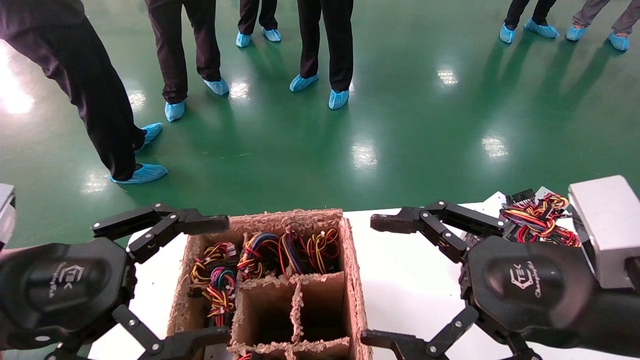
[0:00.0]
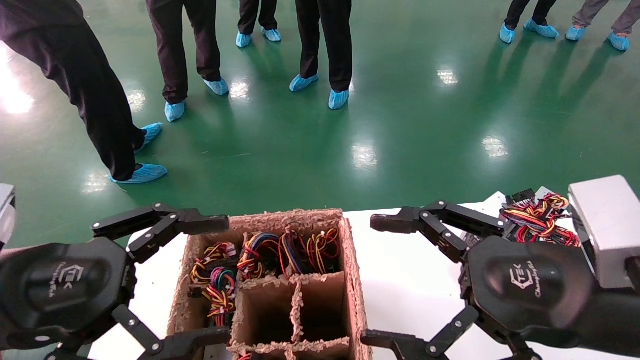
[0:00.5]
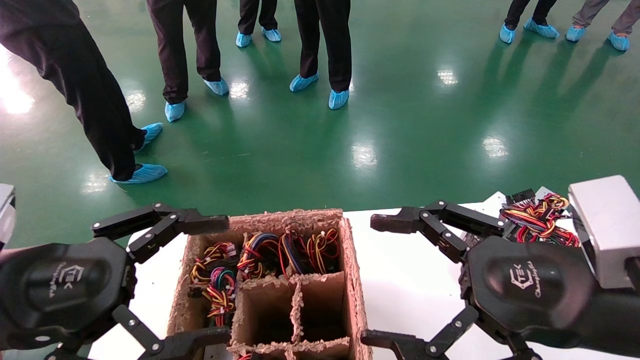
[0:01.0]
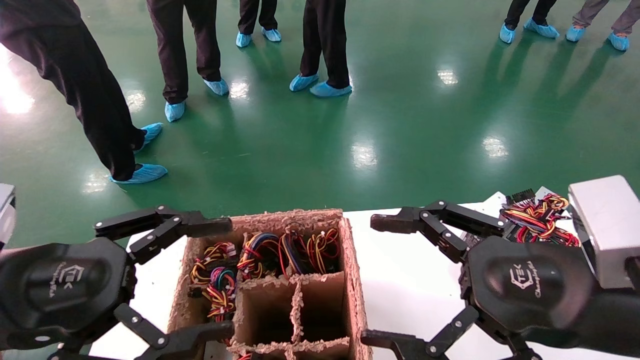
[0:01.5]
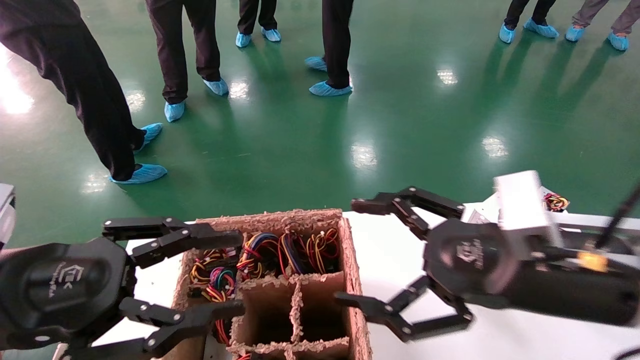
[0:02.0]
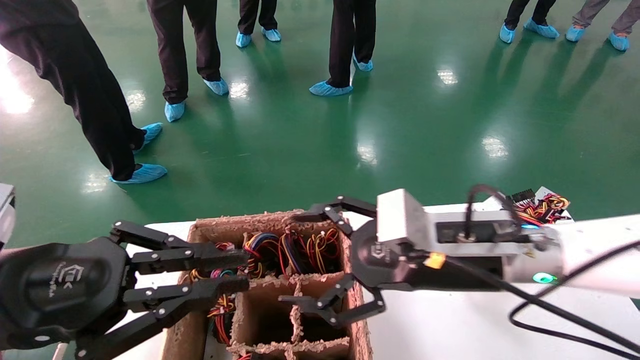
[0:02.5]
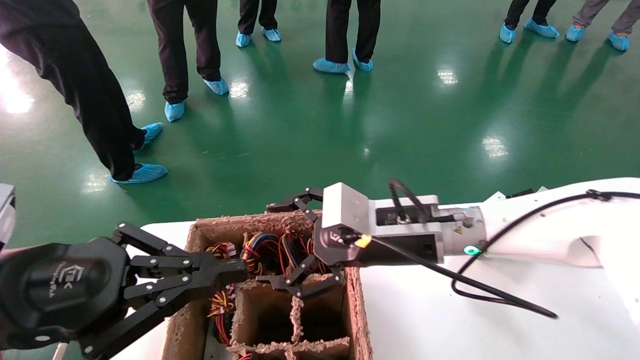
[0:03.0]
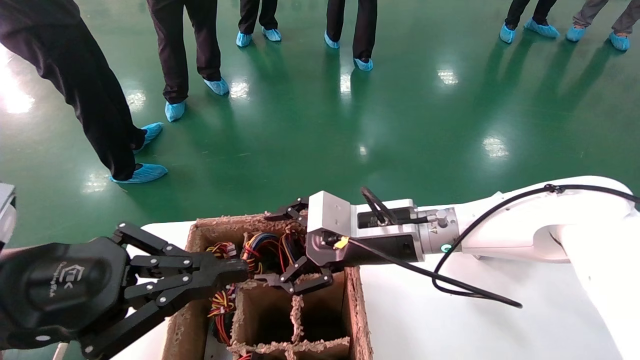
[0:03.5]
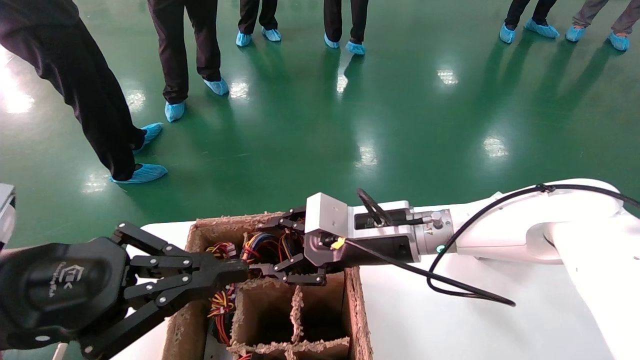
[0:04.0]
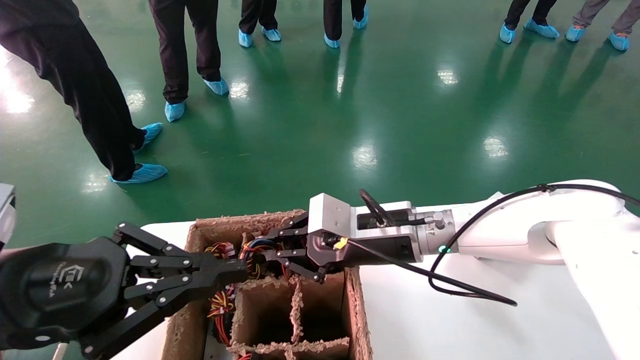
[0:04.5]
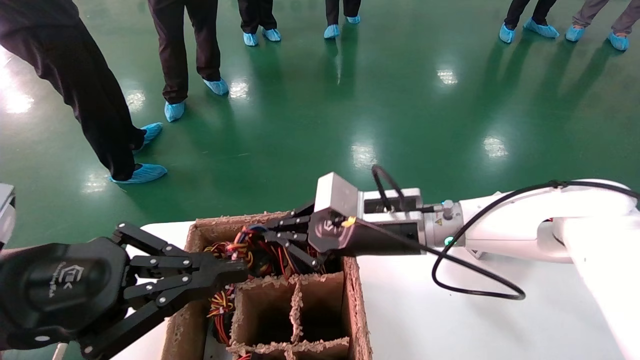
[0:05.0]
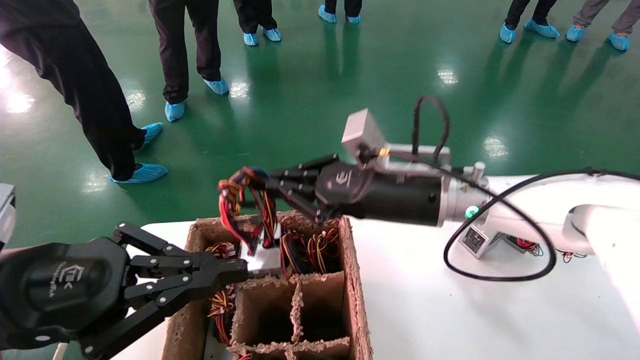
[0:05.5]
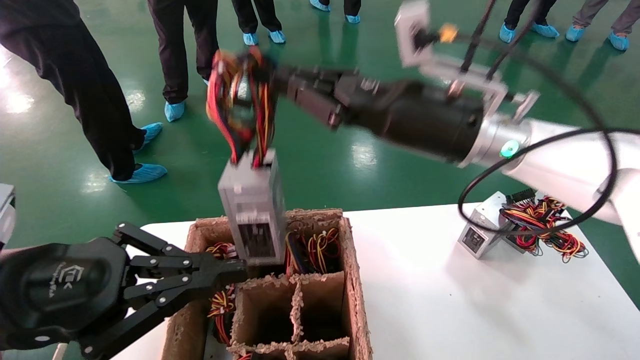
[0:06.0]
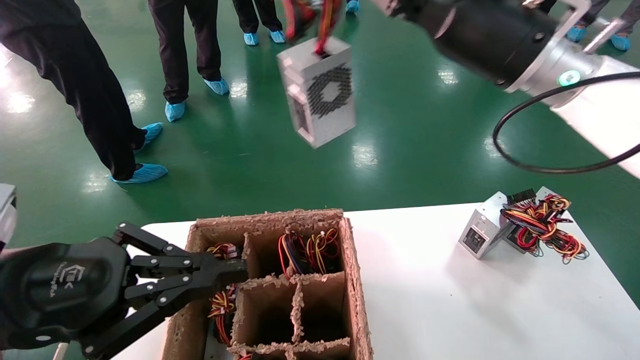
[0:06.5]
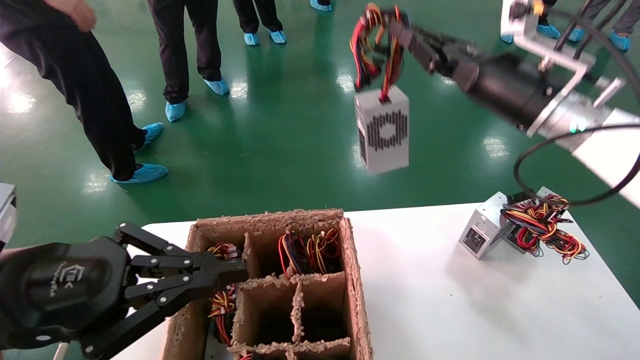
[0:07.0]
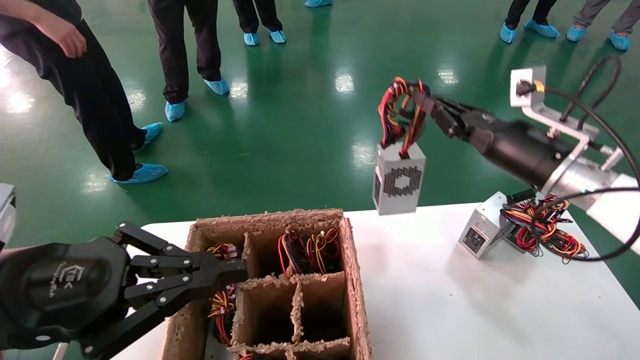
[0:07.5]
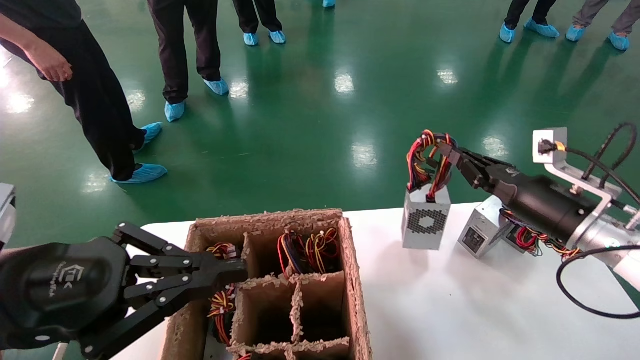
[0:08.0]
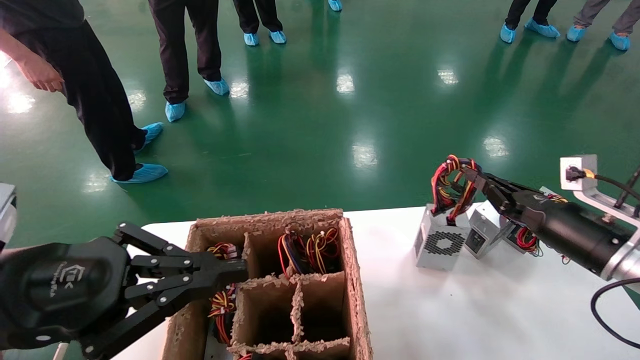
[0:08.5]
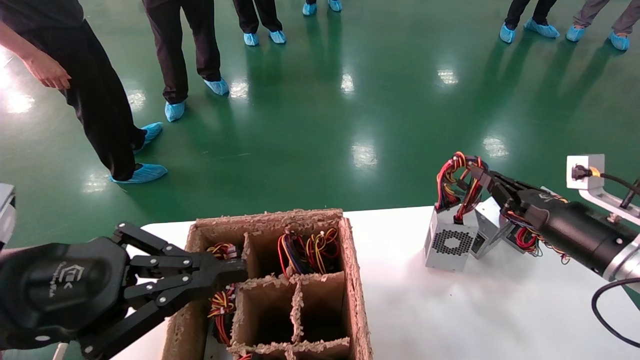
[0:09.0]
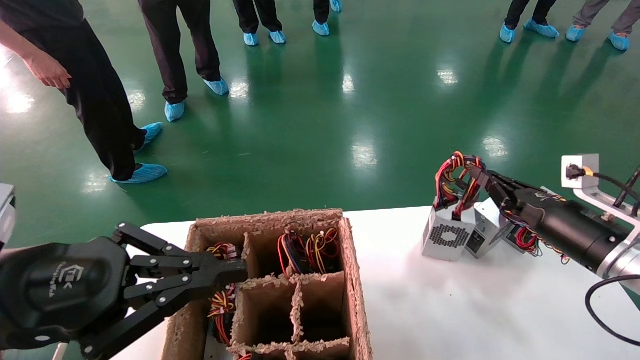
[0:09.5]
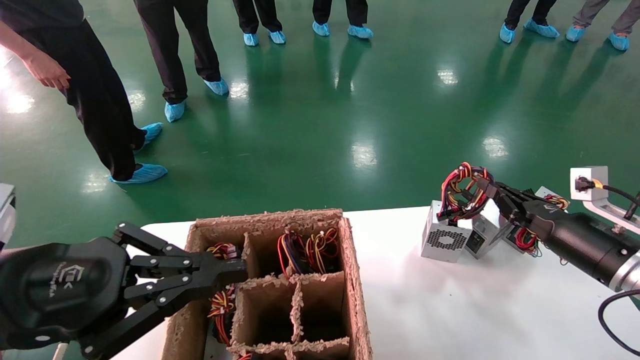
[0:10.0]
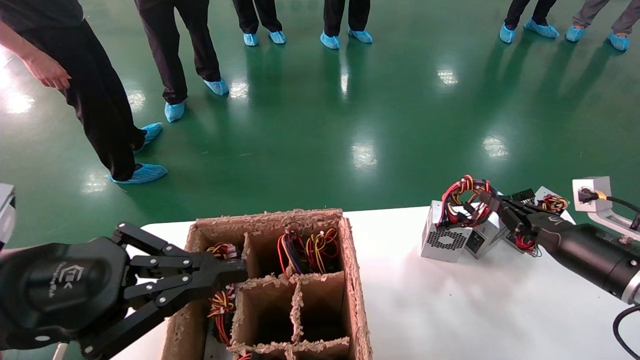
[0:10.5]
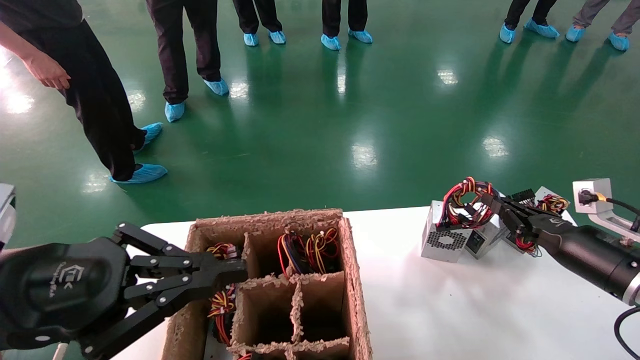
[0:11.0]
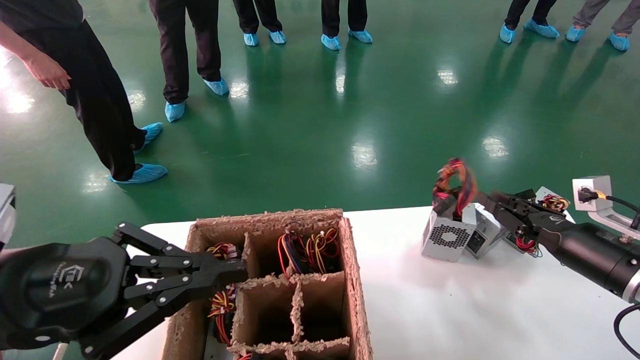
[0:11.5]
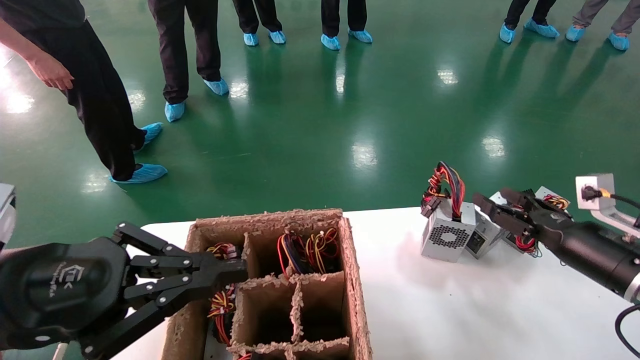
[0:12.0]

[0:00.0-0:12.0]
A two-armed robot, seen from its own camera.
Step, 0:02.0 to 0:04.5: Grab the main unit power supply from the containment box.
Step, 0:05.0 to 0:11.5: Place the main unit power supply in the designated area.
0:00.0 to 0:02.0: The right gripper shifts by approximately 5 cm.
0:02.0 to 0:04.0: The right gripper shifts roughly 20 cm forward and to the left, and closes up. Meanwhile the left gripper closes up.
0:04.0 to 0:06.0: The right gripper heads upward, covering some 15 cm, and closes its fingers.
0:06.0 to 0:08.0: The right gripper heads to the right and downward, covering some 25 cm.
0:08.0 to 0:10.0: The right gripper goes some 5 cm downward and to the right.
0:10.0 to 0:12.0: The right gripper opens up.

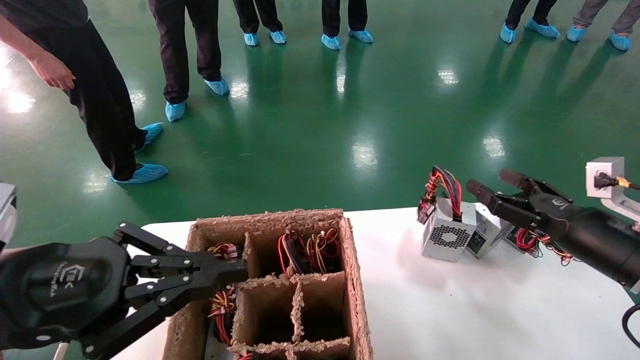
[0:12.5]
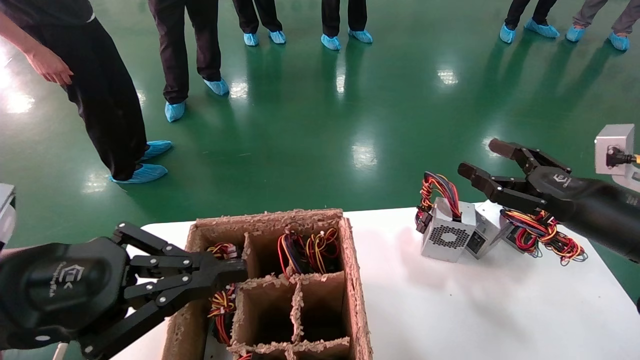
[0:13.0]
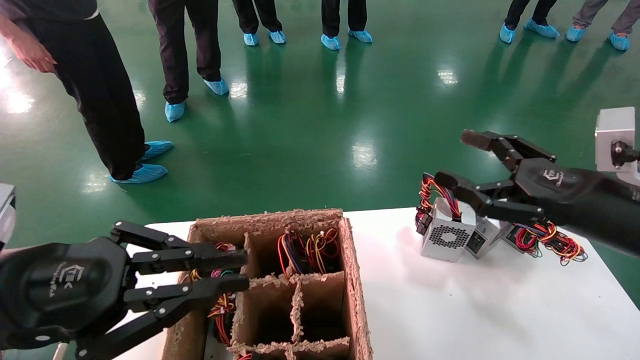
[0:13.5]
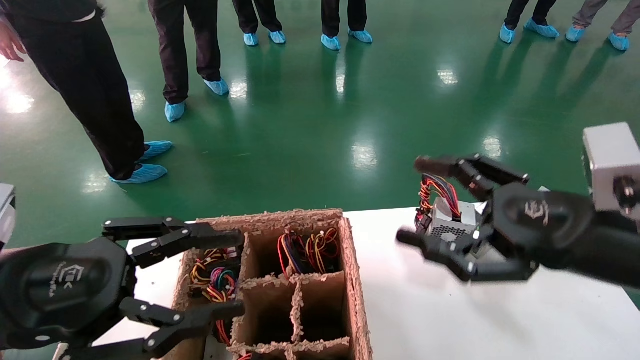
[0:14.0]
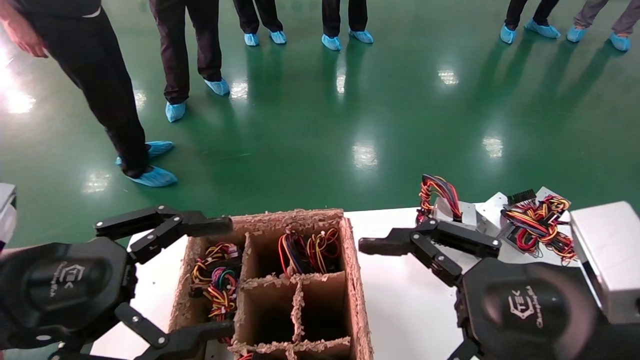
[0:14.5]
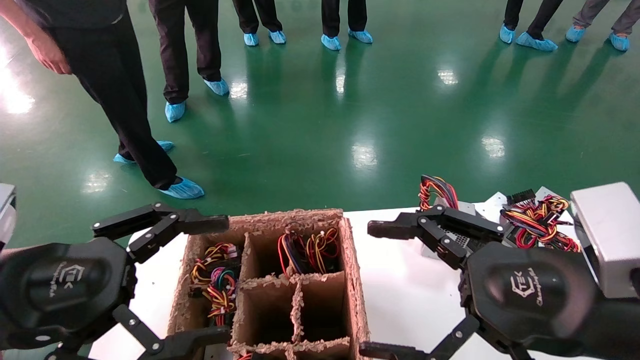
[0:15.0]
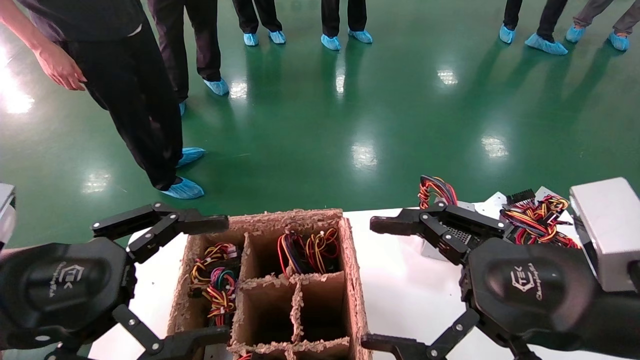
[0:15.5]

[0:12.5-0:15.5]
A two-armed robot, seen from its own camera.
0:12.5 to 0:14.0: The left gripper opens, while the right gripper heads to the left, backward and upward, covering some 15 cm.
0:14.0 to 0:15.5: The right gripper changes place by about 5 cm; the left gripper opens its fingers.
